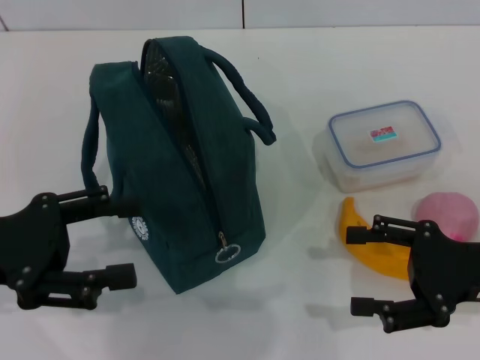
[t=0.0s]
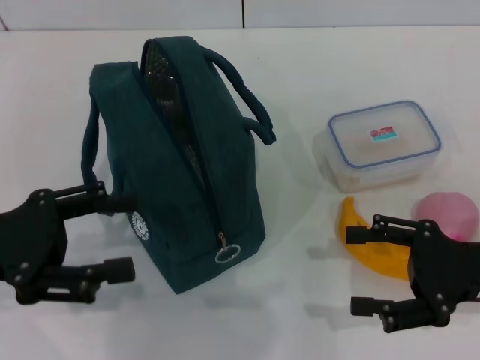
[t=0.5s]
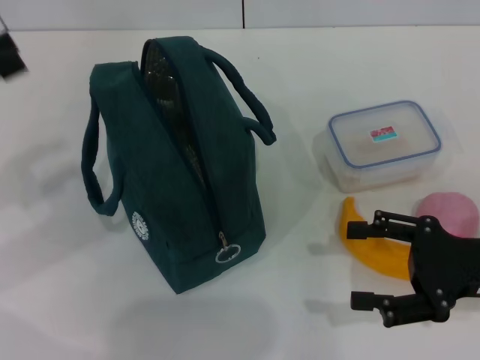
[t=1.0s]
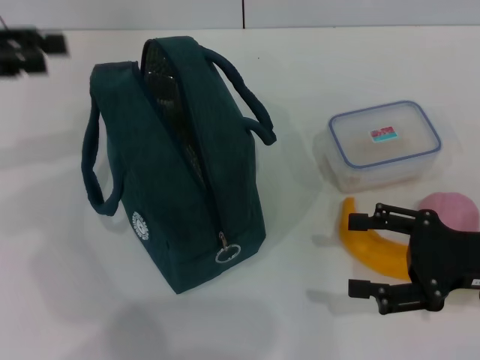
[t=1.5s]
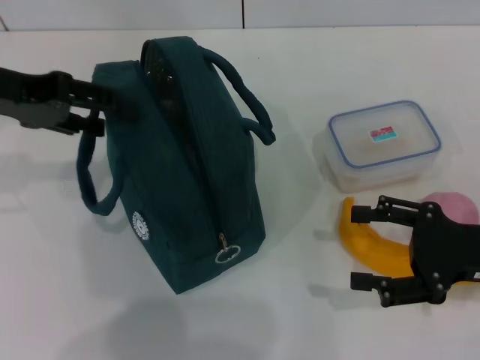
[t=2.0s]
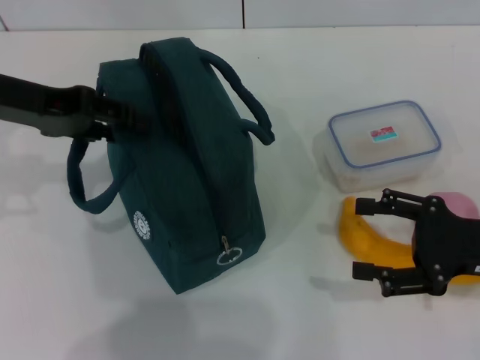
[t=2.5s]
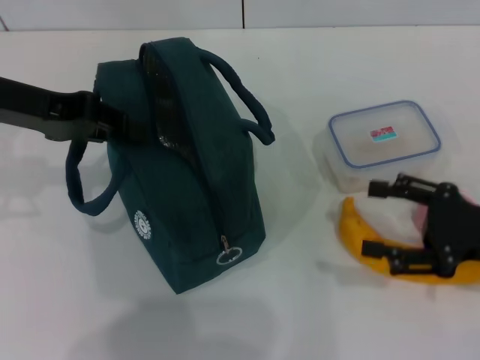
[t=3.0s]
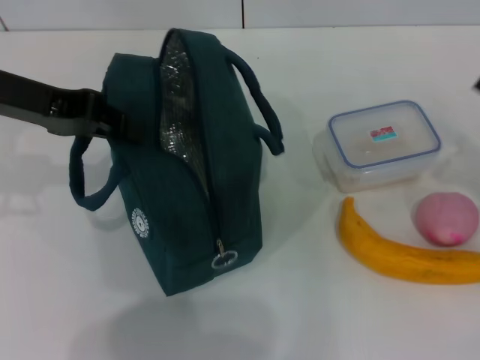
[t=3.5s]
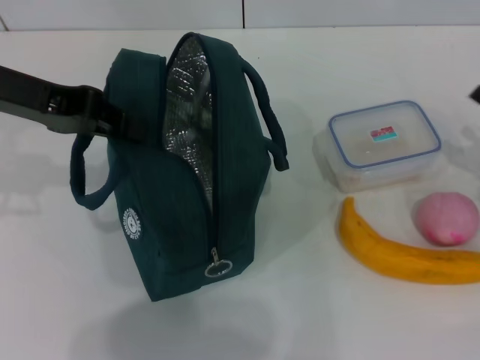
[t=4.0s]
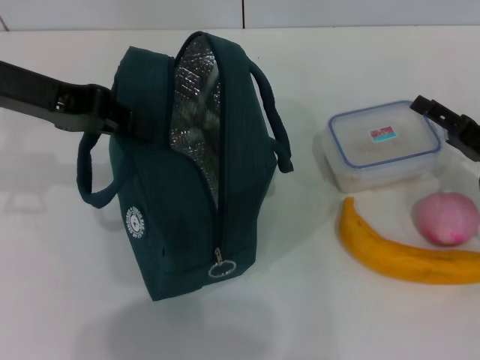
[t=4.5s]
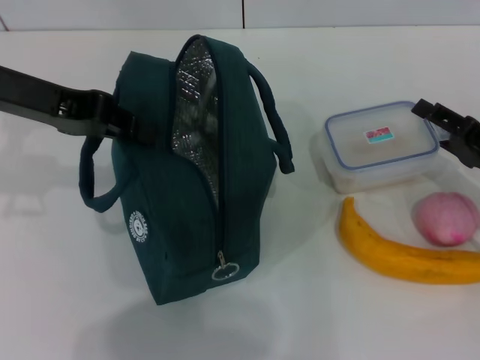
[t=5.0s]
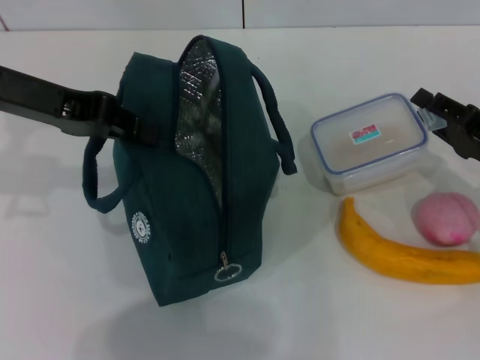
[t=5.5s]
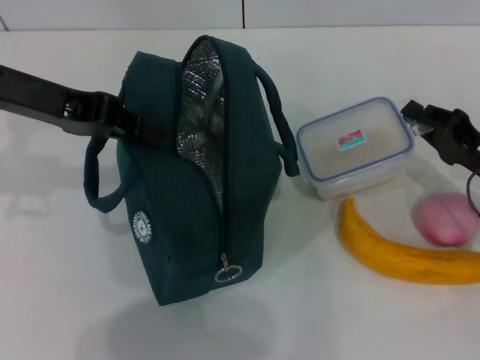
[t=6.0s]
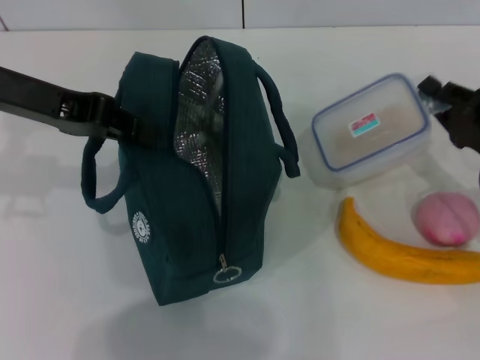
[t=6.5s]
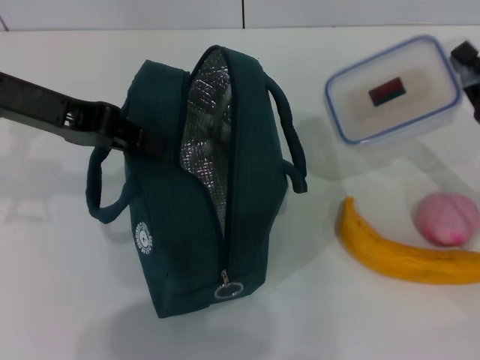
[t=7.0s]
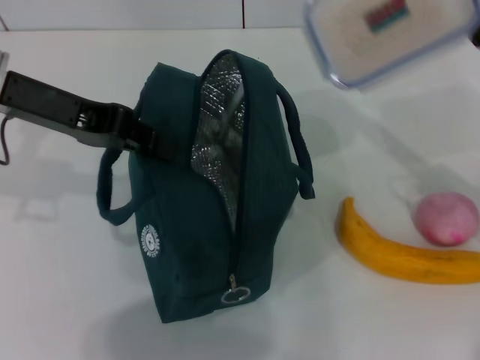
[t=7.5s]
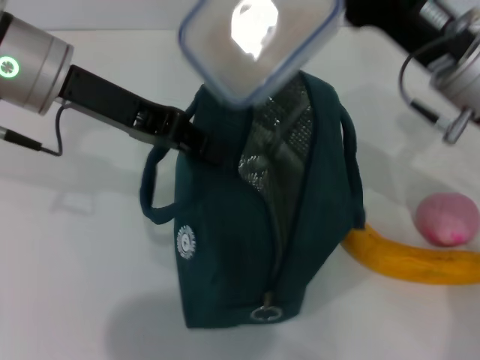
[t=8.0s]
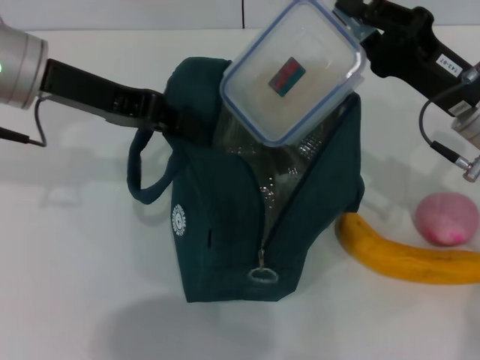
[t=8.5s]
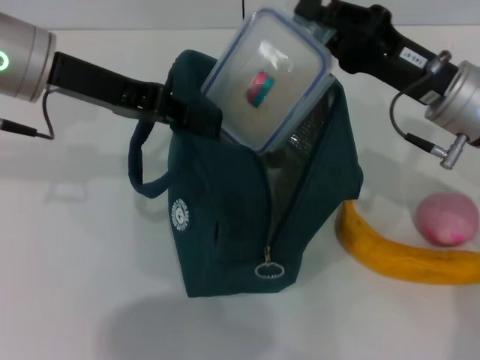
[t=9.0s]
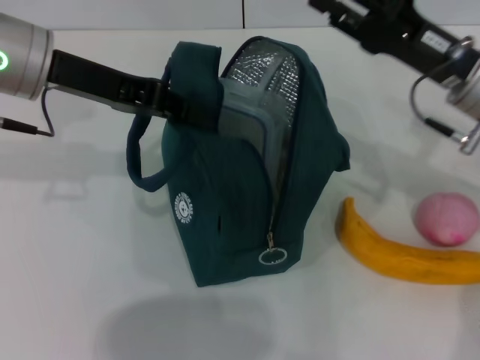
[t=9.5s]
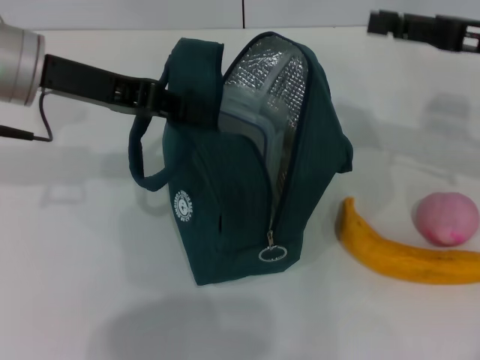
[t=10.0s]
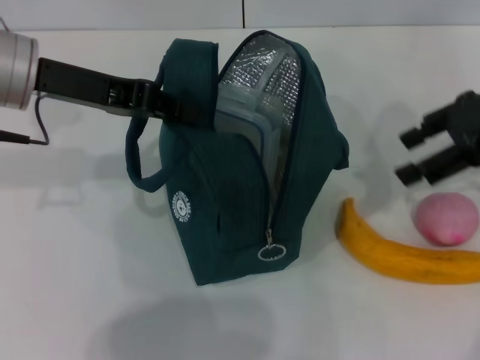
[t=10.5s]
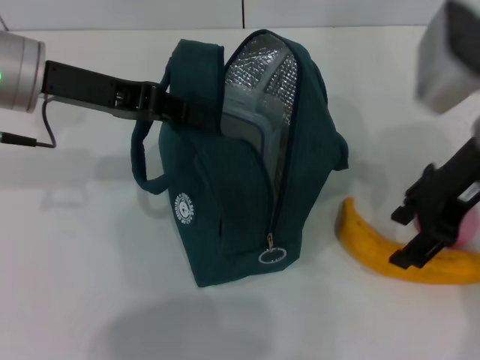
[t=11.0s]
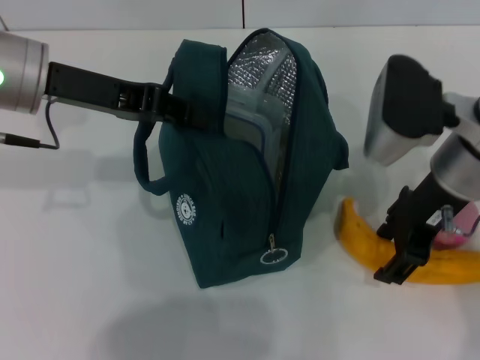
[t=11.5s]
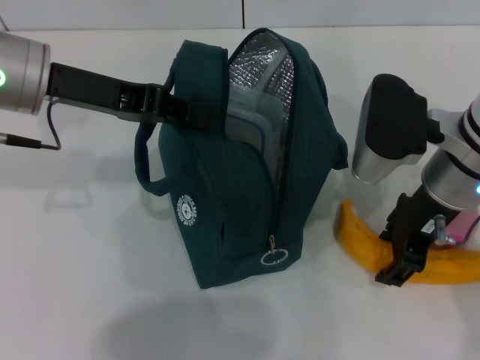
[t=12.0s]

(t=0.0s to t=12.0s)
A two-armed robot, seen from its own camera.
Step, t=0.0s - t=3.5s: Hold the lunch bag with your left hand.
Step, t=4.0s - t=6.0s: Pick up the lunch box with your right hand.
Step, t=6.5s - t=9.5s: Place the lunch box into the lunch bag with your right hand.
t=0.0s - t=2.0s: The left gripper travels forward and upward by some 15 cm.
t=2.0s - t=4.0s: The right gripper goes about 10 cm to the right and forward. Meanwhile the left gripper closes up.
t=4.0s - t=6.0s: The right gripper is displaced to the left by about 5 cm, and closes its fingers.
t=6.0s - t=8.0s: The right gripper shifts approximately 15 cm to the left and upward. The left gripper heads to the right, covering roughly 5 cm.
t=8.0s - t=10.0s: The right gripper shifts approximately 10 cm to the right, and opens its fingers.
t=10.0s - t=12.0s: The right gripper heads to the left, covering roughly 15 cm.

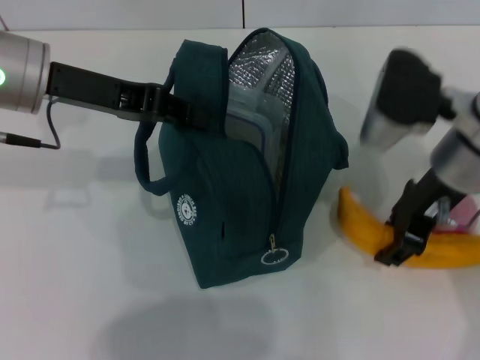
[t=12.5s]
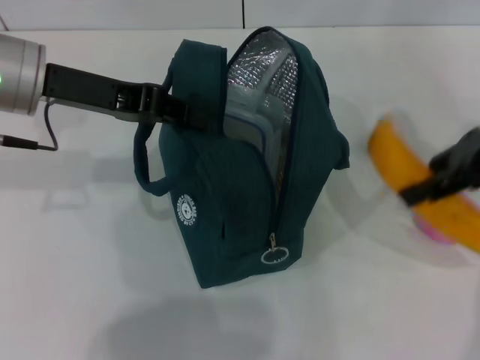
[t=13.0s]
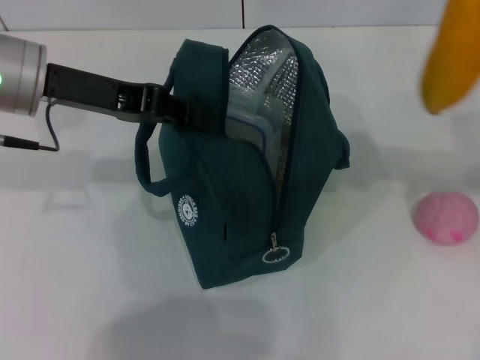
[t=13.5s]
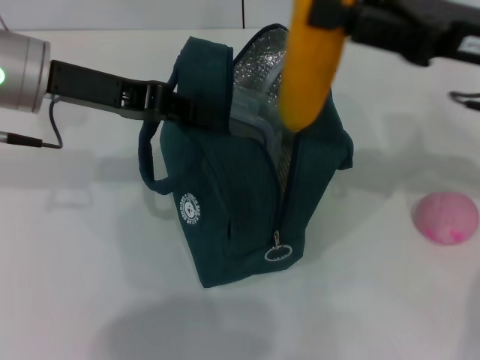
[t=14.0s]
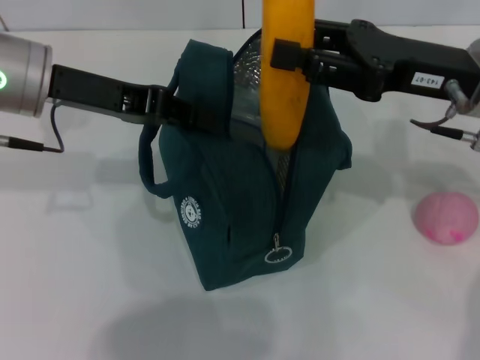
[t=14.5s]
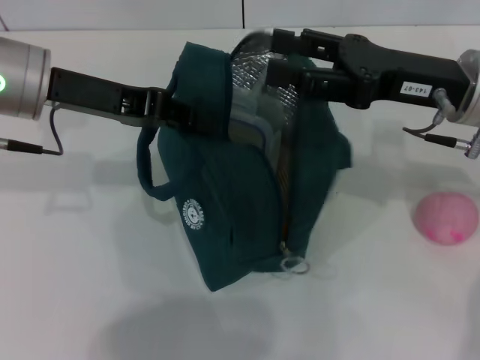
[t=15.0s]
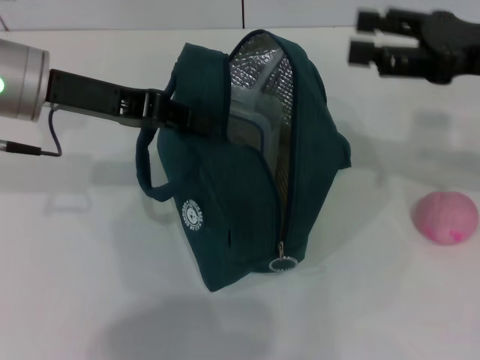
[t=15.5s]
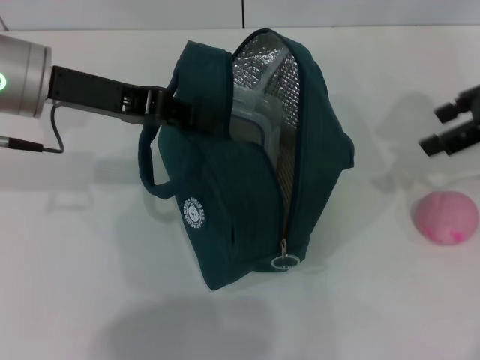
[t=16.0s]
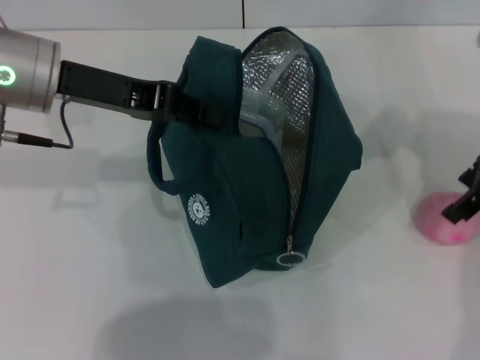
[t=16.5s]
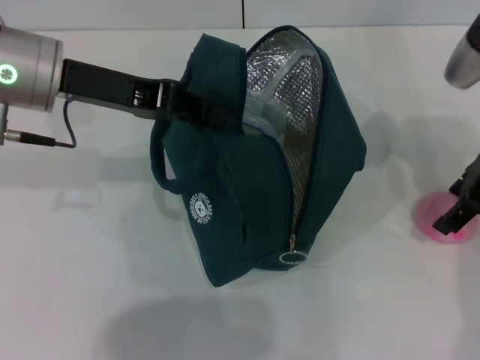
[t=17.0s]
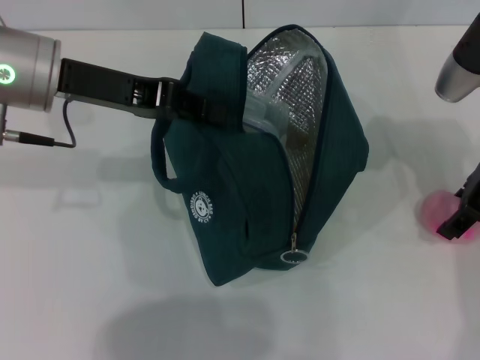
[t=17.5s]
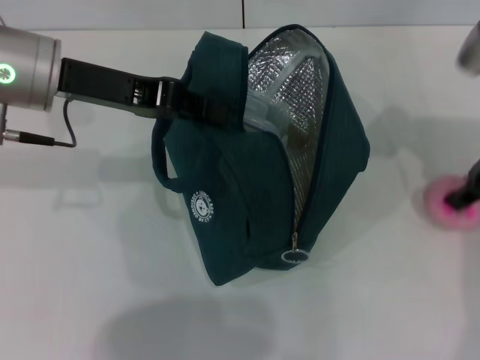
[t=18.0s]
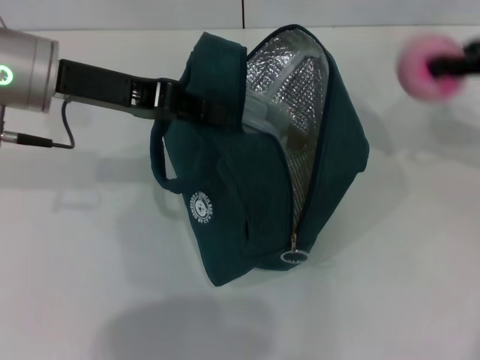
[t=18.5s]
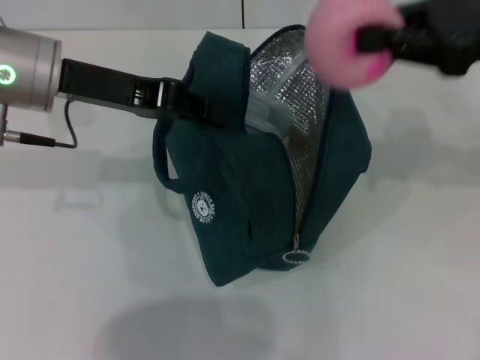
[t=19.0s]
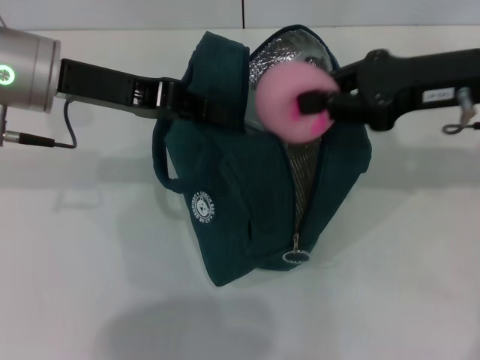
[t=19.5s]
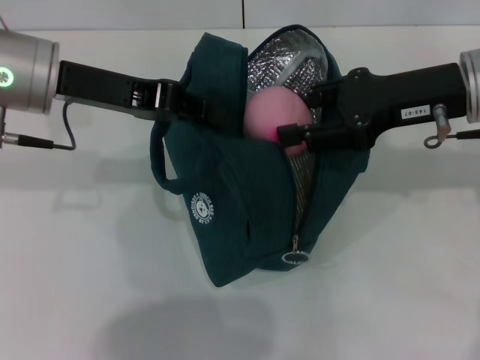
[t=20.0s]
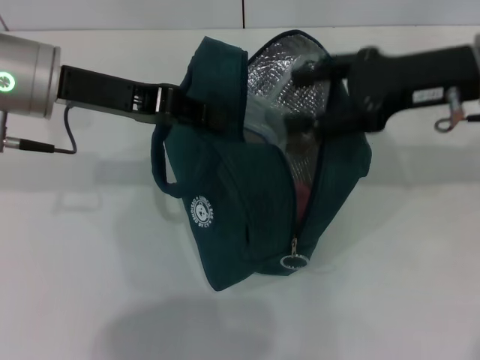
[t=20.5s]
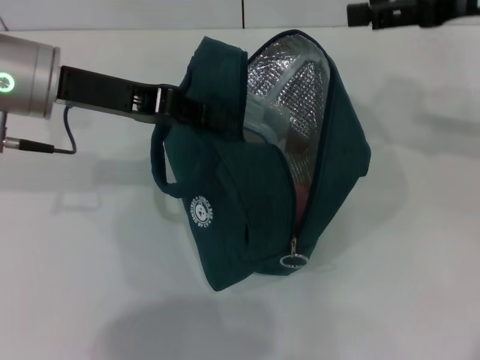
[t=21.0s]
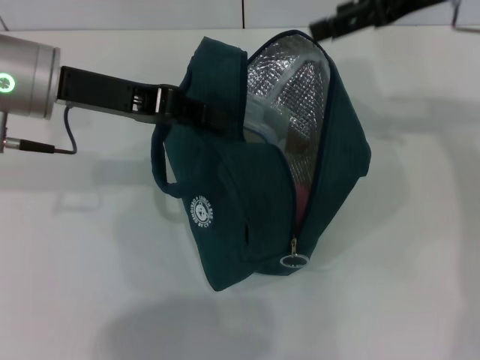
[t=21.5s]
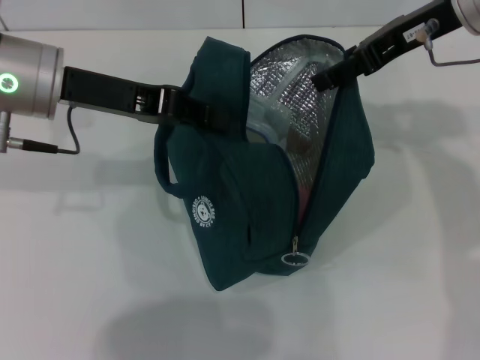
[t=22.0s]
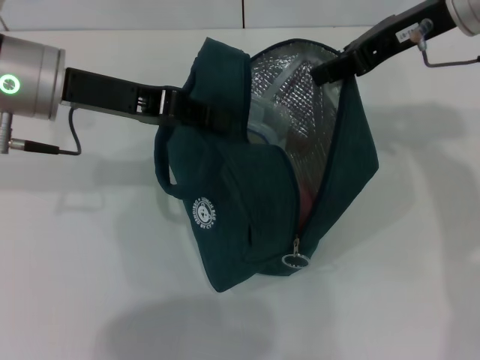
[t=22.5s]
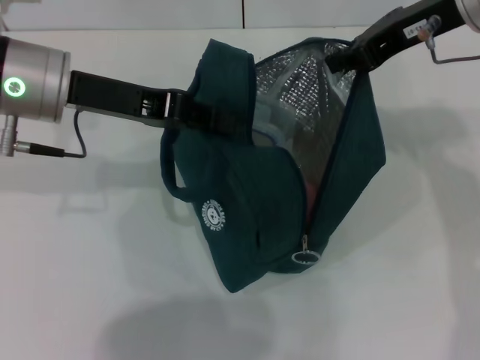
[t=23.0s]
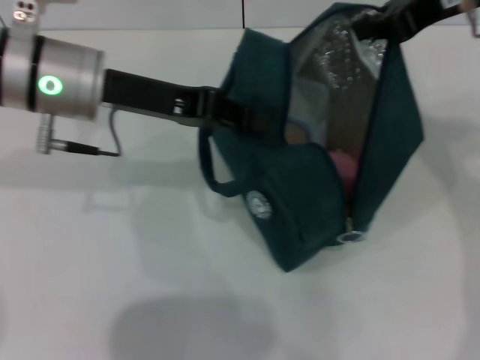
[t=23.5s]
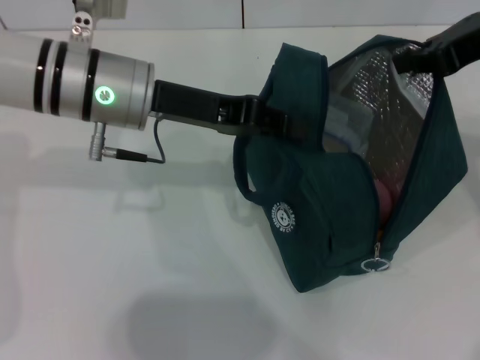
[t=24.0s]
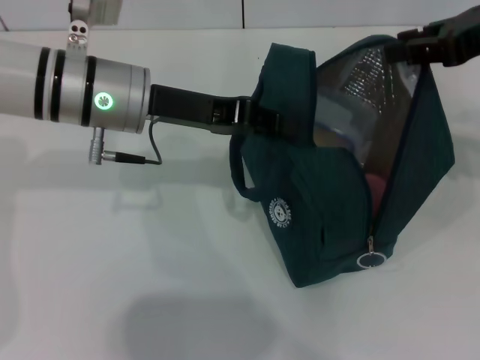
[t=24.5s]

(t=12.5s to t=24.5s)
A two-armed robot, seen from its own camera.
Step, t=12.5s - t=15.0s: Put the banana into the lunch bag with your right hand.
Step, t=15.5s - t=17.5s: Grab the peach with your right hand.
t=12.5s - t=14.5s: The right gripper reaches some 15 cm to the right, then returns.
t=14.5s - t=16.5s: The right gripper opens its fingers.
t=16.5s - t=18.5s: The right gripper shifts by roughly 5 cm, and closes up.
t=18.5s - t=20.5s: The right gripper heads to the left, covering roughly 10 cm, and opens up.
t=20.5s - t=22.5s: The right gripper shifts by approximately 5 cm.
t=22.5s - t=24.5s: Both grippers move to the right, about 5 cm. The right gripper closes.

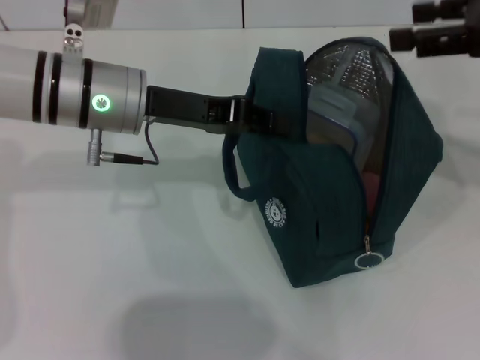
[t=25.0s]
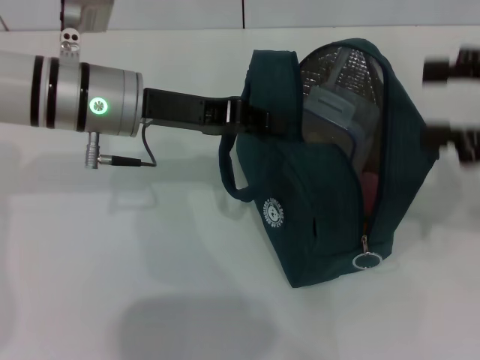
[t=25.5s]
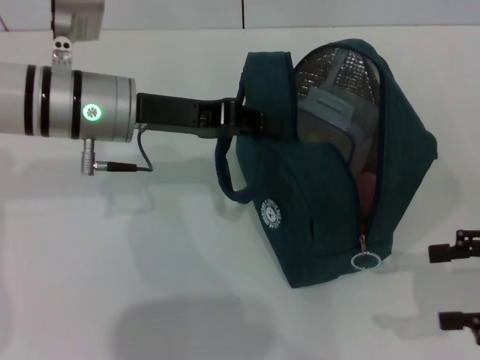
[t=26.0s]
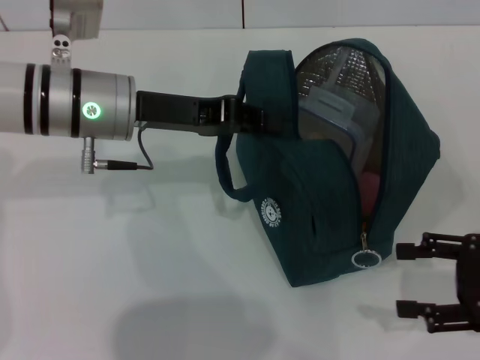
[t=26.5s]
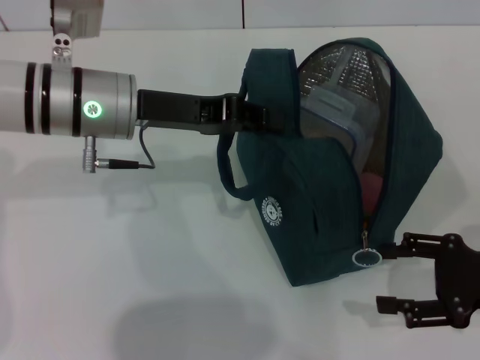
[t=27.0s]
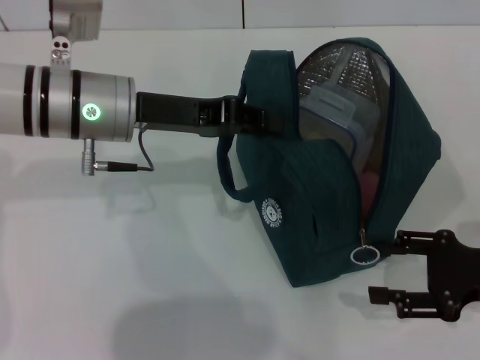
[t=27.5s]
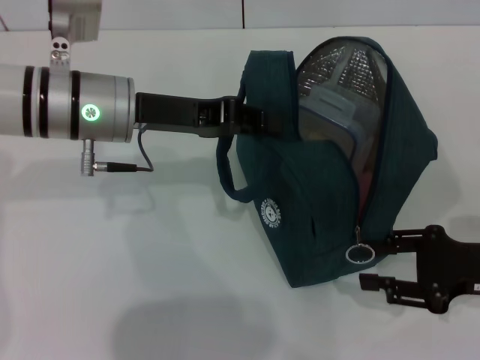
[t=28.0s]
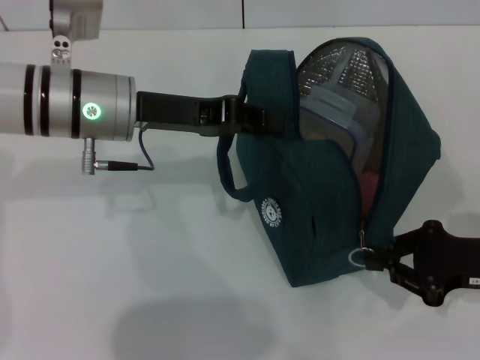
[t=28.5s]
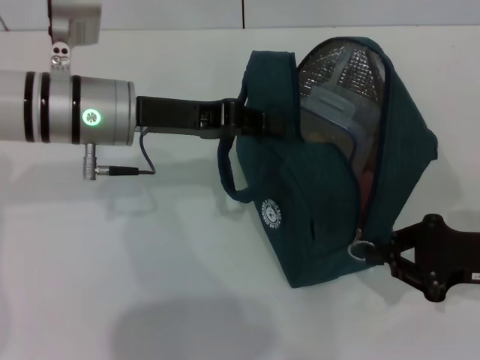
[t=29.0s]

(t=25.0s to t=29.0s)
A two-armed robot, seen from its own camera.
t=25.0s - t=27.0s: The right gripper travels downward and backward by about 20 cm.
t=27.0s - t=29.0s: The right gripper closes its fingers.
